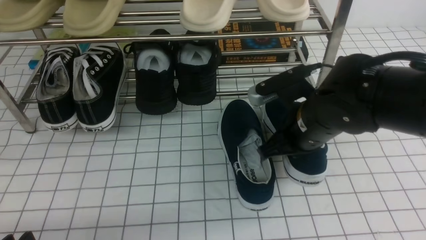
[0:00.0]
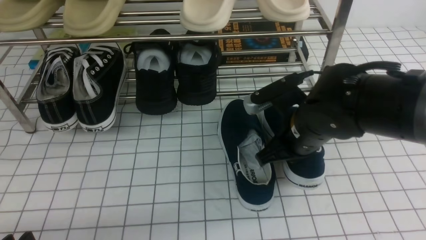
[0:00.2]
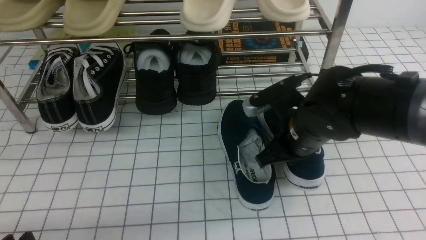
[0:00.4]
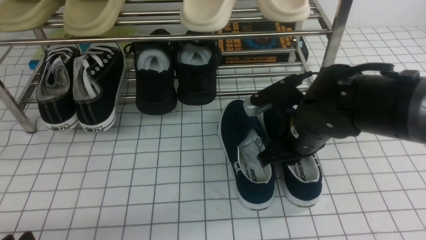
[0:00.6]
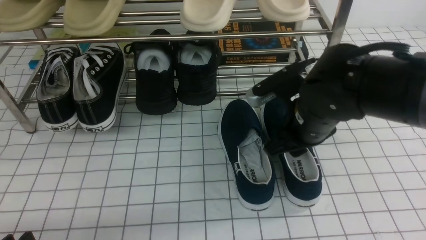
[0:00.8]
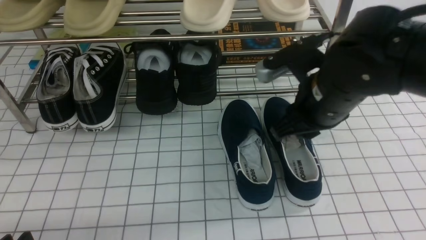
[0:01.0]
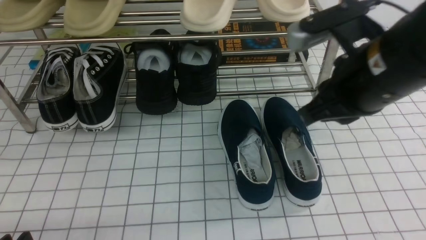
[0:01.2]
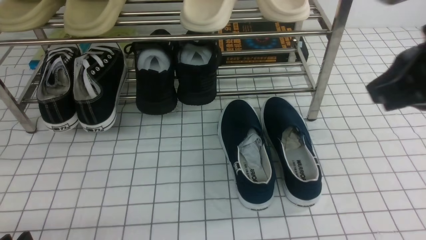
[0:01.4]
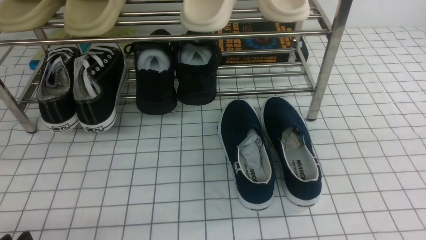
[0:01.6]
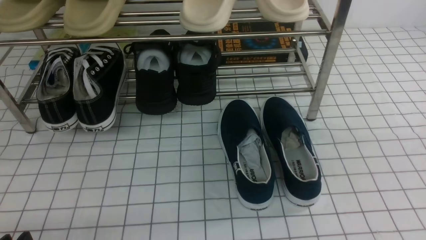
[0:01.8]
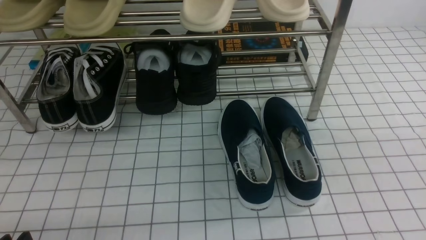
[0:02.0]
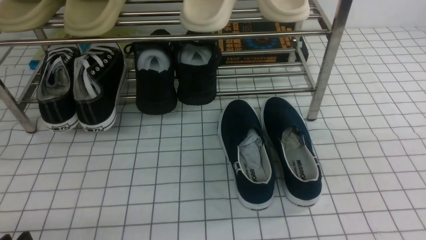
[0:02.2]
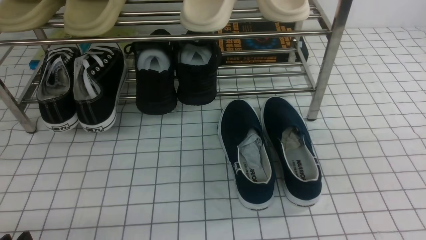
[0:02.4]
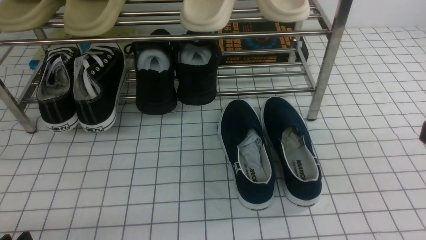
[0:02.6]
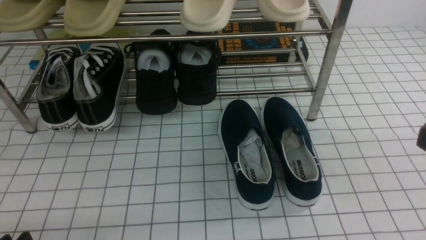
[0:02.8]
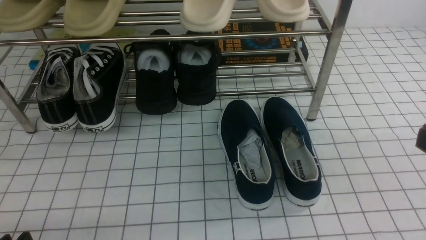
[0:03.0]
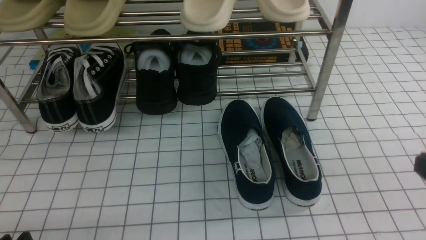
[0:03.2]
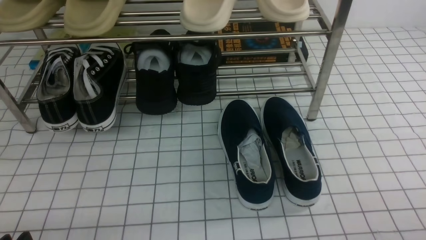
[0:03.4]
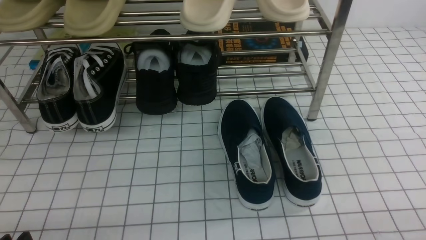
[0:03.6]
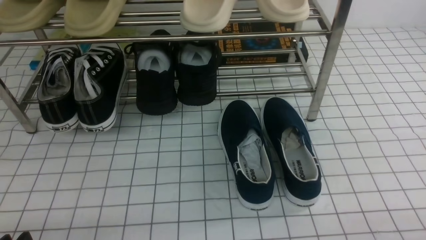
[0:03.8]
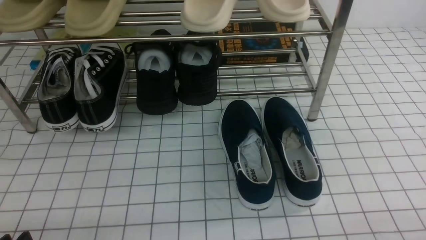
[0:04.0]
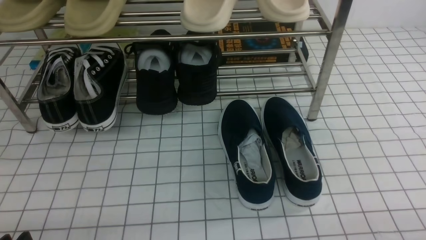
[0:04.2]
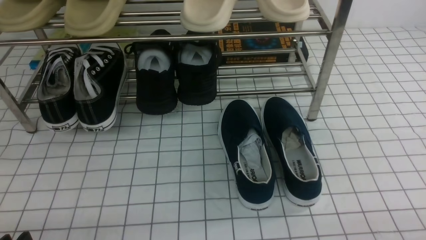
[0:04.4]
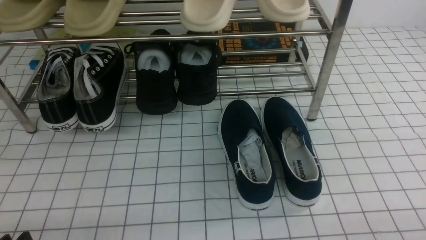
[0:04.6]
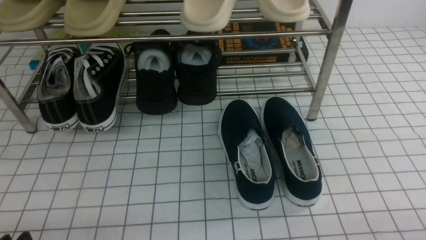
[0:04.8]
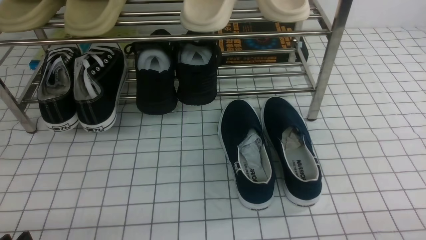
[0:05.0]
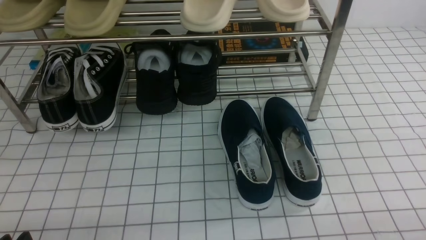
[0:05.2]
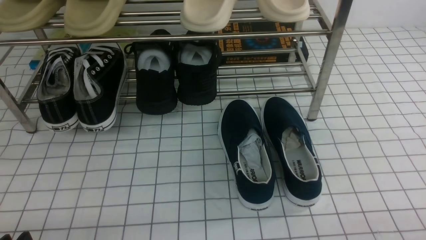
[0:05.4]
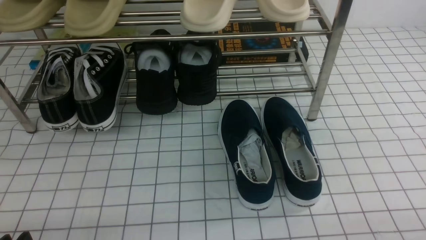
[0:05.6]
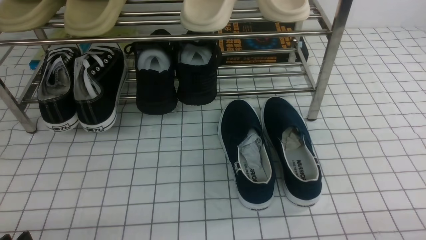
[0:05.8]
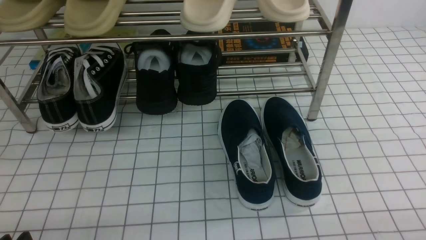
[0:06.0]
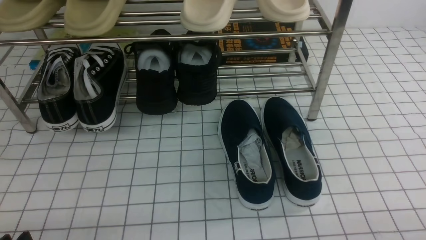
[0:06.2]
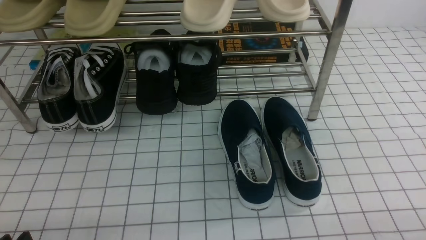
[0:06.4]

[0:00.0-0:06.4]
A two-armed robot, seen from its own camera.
0:00.0 to 0:01.6: The right gripper shifts roughly 25 cm upward, backward and to the right, and opens, then closes again.
0:01.6 to 0:03.2: The right gripper shifts roughly 15 cm downward.
0:04.8 to 0:06.4: Both grippers stay put.
